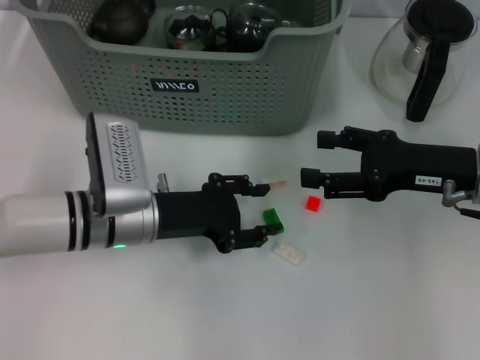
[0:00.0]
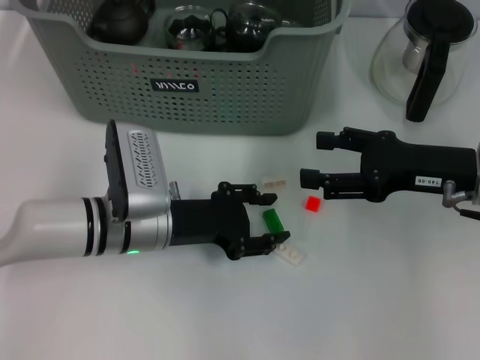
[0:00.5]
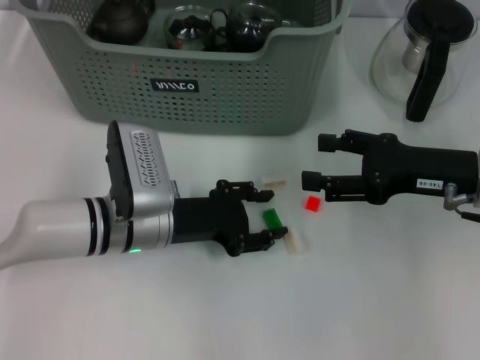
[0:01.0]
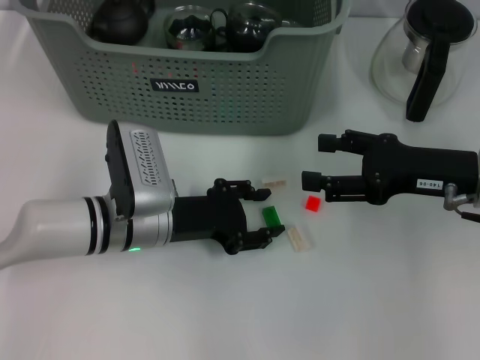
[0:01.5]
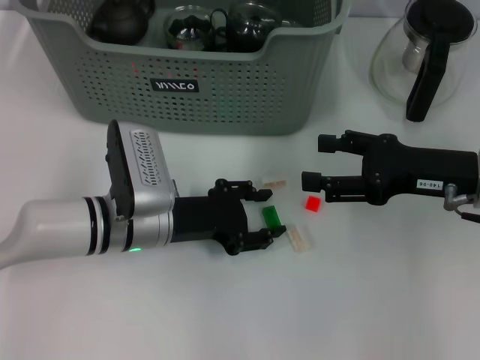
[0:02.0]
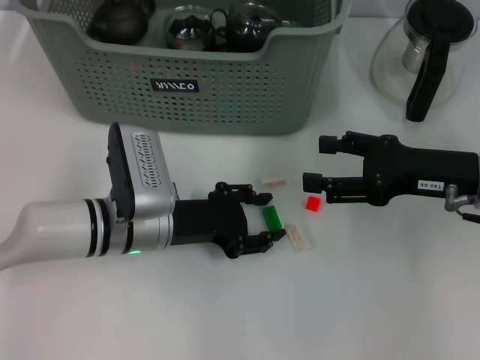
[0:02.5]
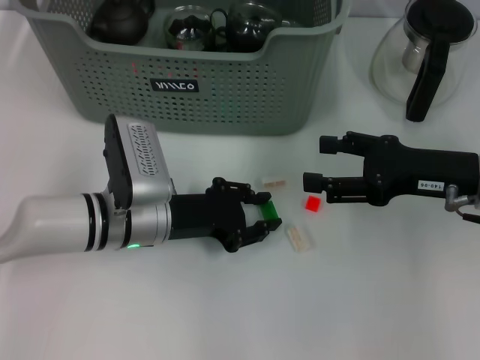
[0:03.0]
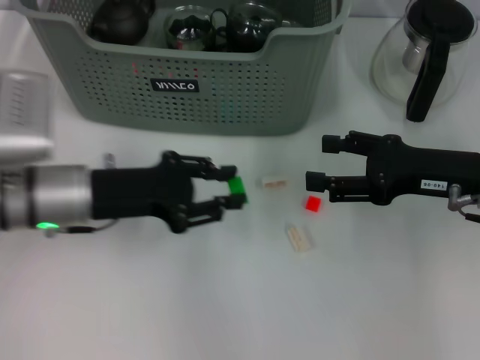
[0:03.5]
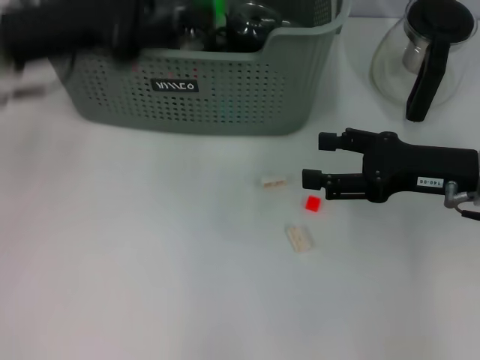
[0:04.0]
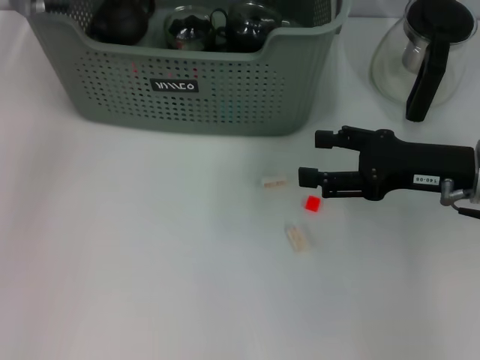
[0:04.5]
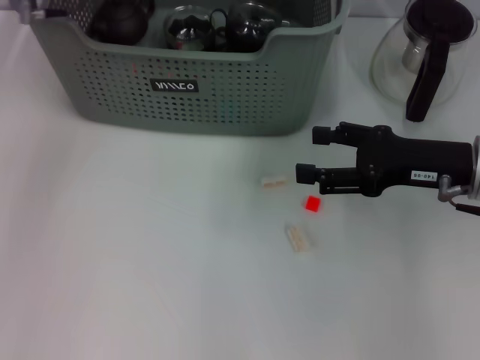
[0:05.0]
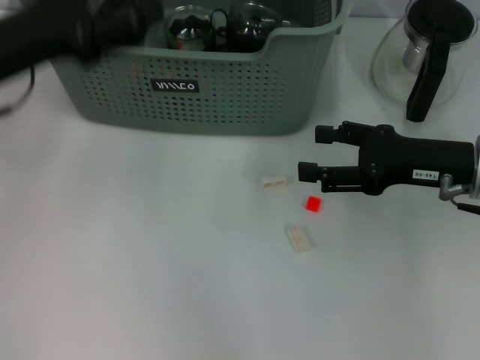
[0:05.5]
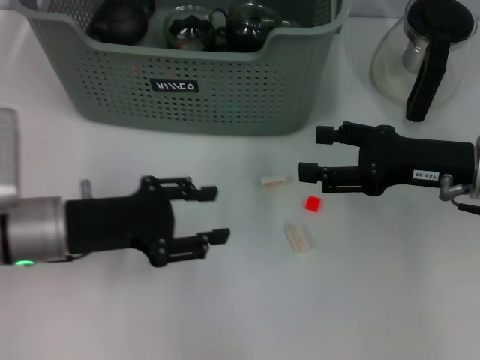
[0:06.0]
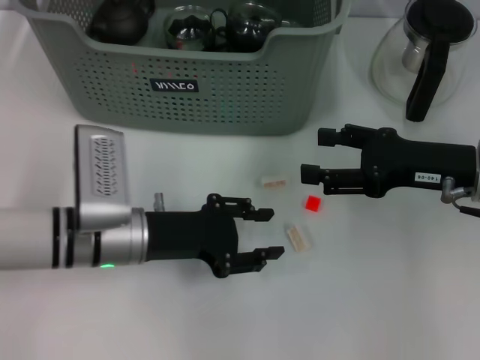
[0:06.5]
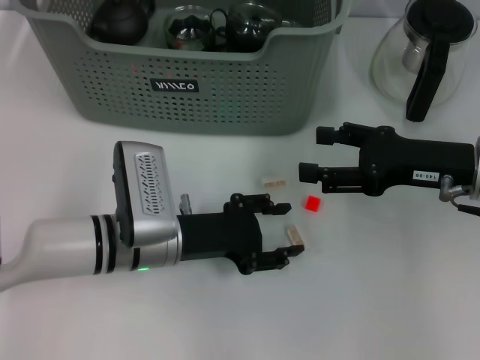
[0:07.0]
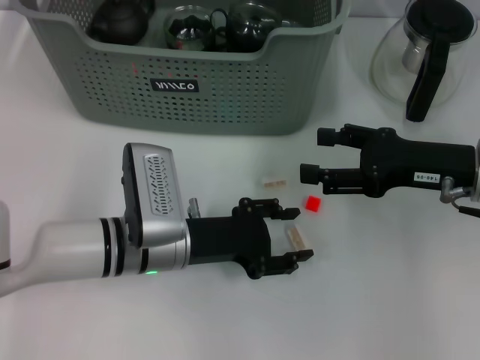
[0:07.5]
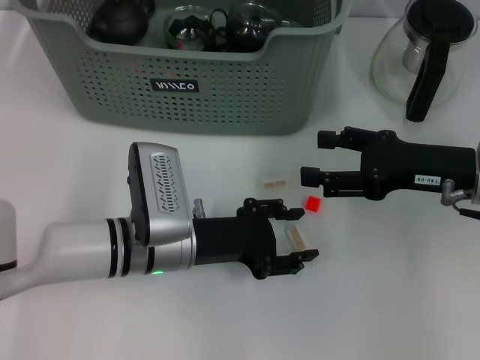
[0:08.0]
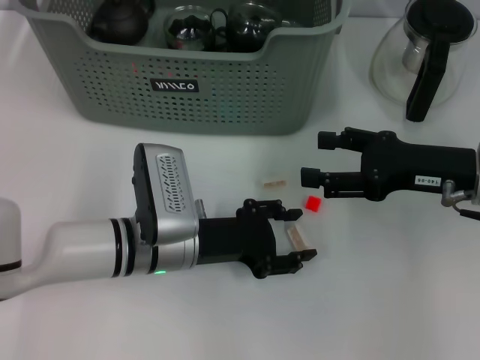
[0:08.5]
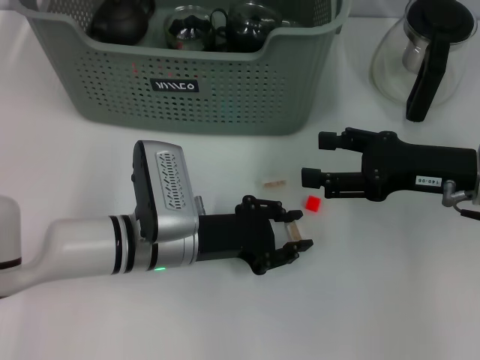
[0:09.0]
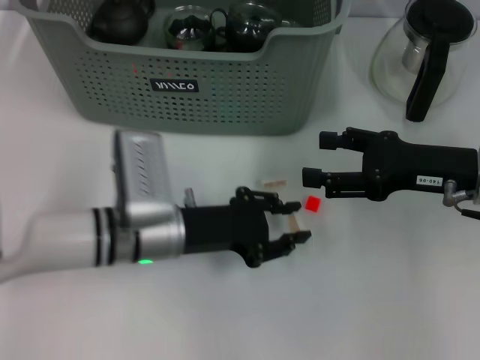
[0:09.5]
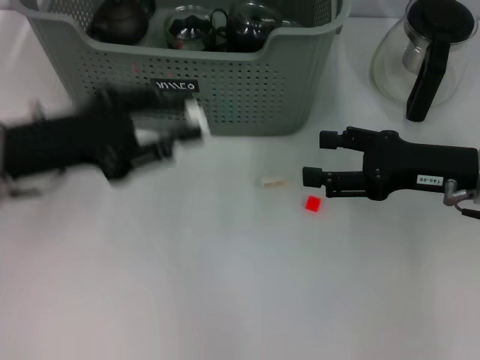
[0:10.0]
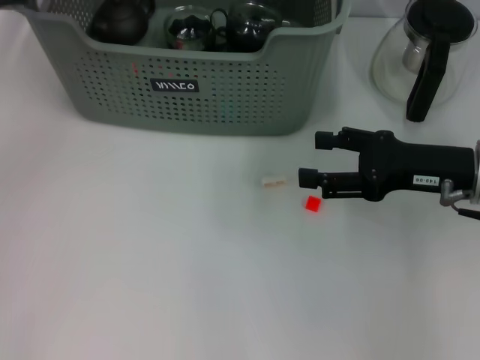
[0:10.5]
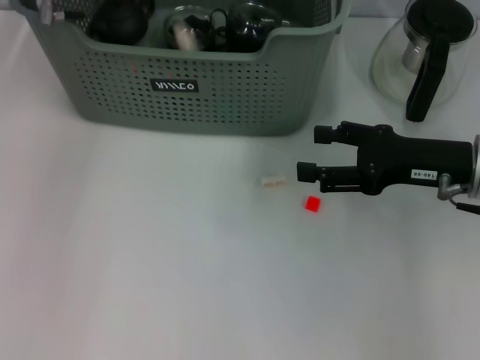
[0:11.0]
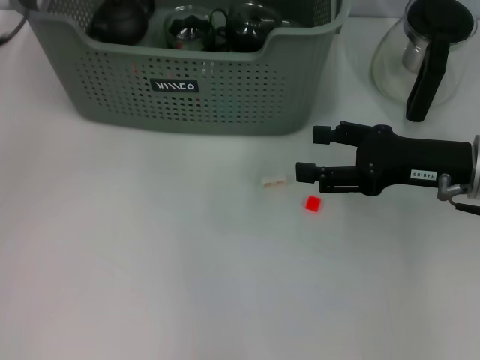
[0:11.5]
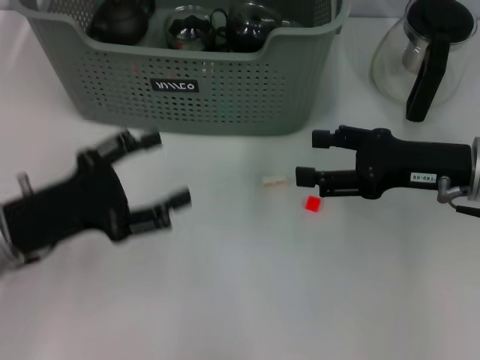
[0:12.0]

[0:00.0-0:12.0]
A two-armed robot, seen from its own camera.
Task of the whole recording: pick up the teacup on the table and place it into the storage bin, pick up the block on the table and place it into the storage bin.
Step, 0:00.0 to 0:02.5: Grasp the green block with left gripper.
Step, 0:03.0 to 0:05.0: Place the green block in the storage box with left gripper.
Step, 0:05.5 to 0:09.0: Grasp the white block with left gripper.
Step, 0:09.5 to 0:11.0: Place the white block in the storage box with left gripper.
0:00.0 to 0:02.0: The grippers move only a little.
0:02.0 to 0:04.0: The left gripper heads upward and to the left, covering about 20 cm.
0:04.0 to 0:06.0: The left gripper is displaced downward and backward by some 15 cm, and opens up.
0:06.0 to 0:08.0: The left gripper goes roughly 10 cm to the right and downward.
0:08.0 to 0:10.0: The left gripper heads to the left and upward, covering some 15 cm.
0:10.0 to 0:12.0: The left gripper travels forward and back again, some 20 cm each way, and opens up.

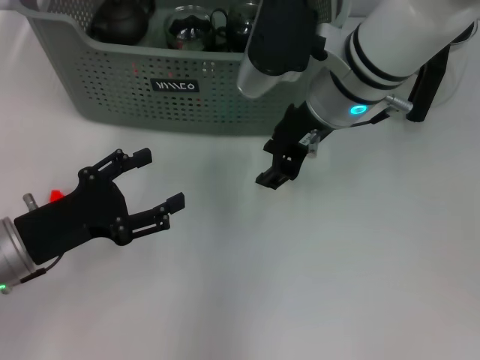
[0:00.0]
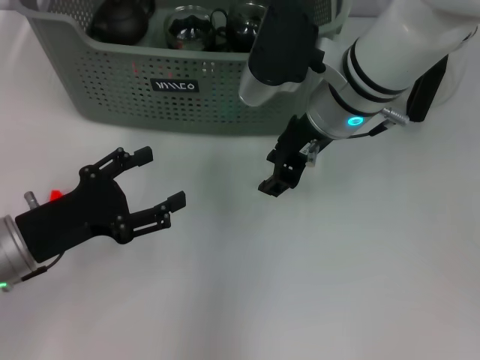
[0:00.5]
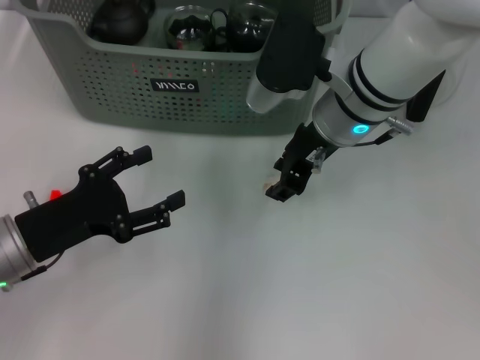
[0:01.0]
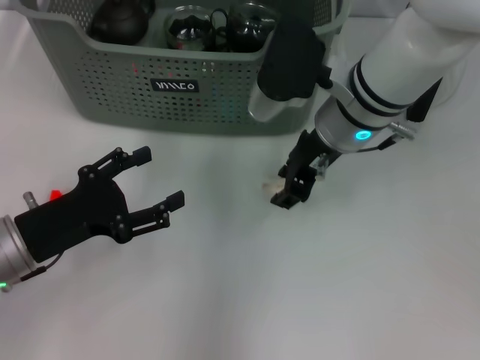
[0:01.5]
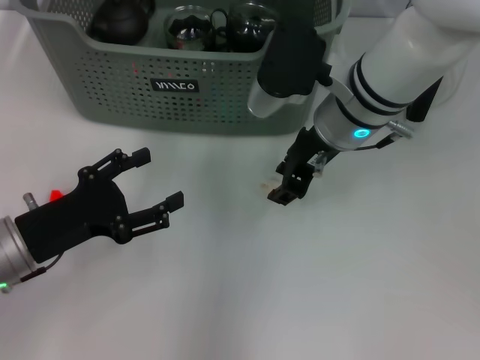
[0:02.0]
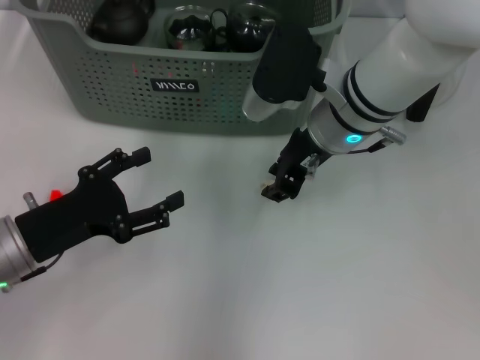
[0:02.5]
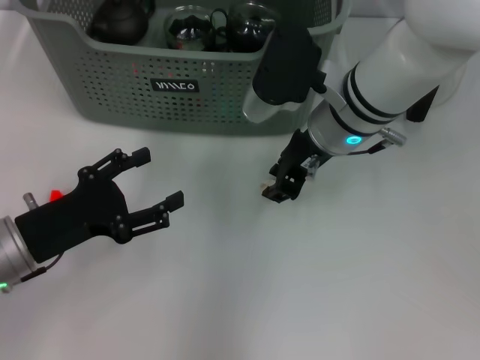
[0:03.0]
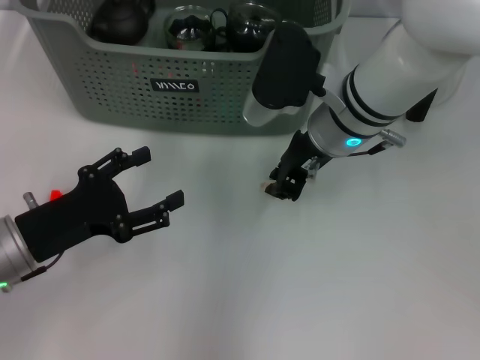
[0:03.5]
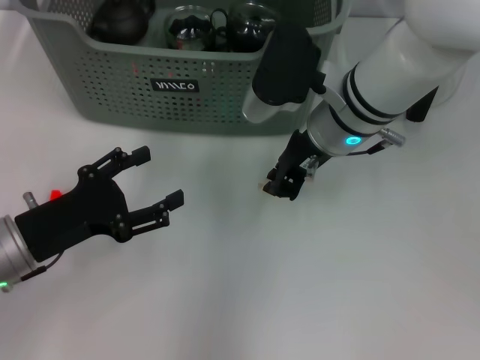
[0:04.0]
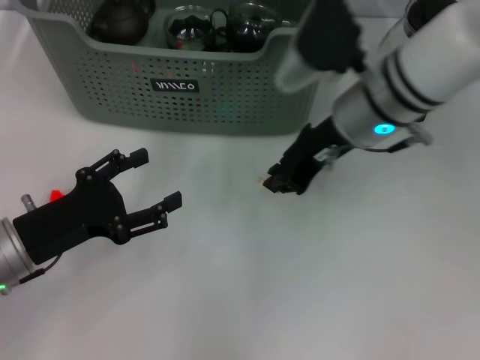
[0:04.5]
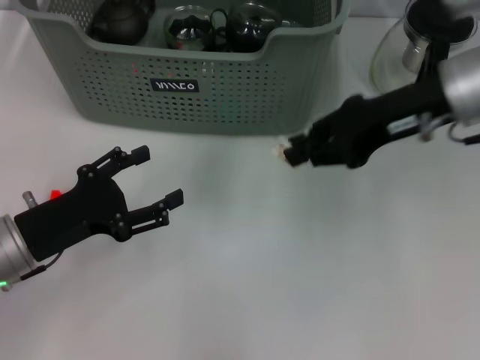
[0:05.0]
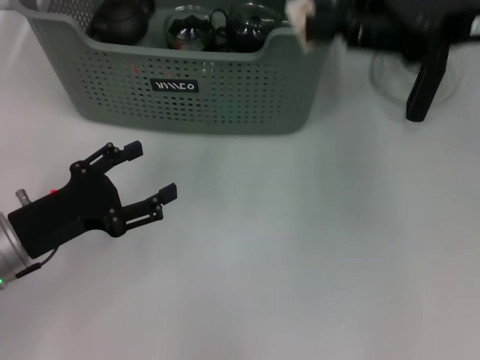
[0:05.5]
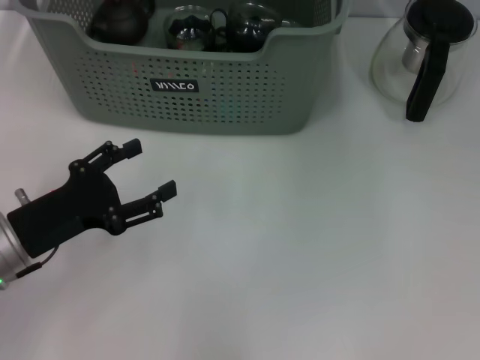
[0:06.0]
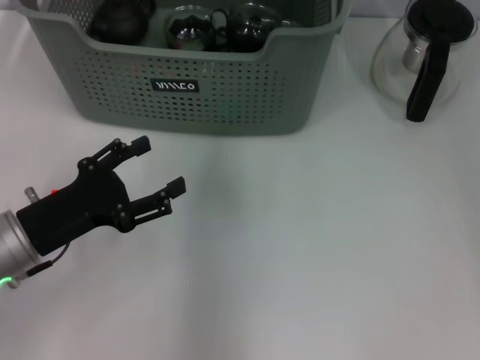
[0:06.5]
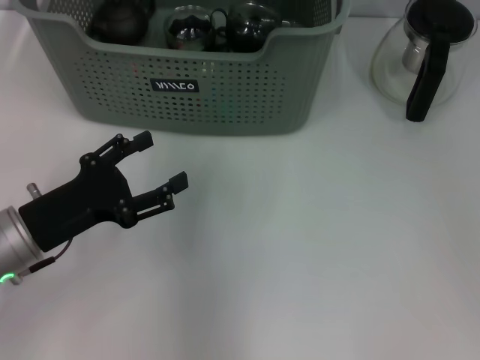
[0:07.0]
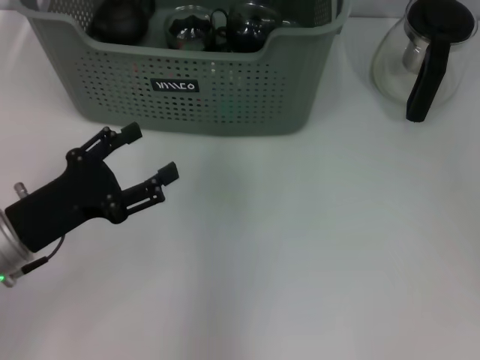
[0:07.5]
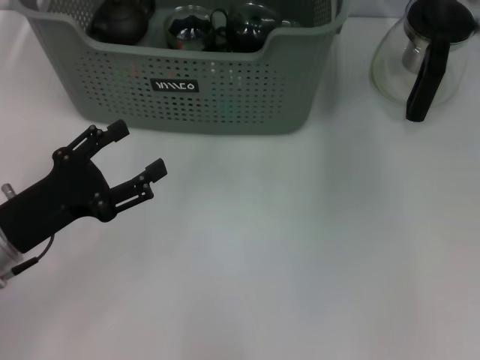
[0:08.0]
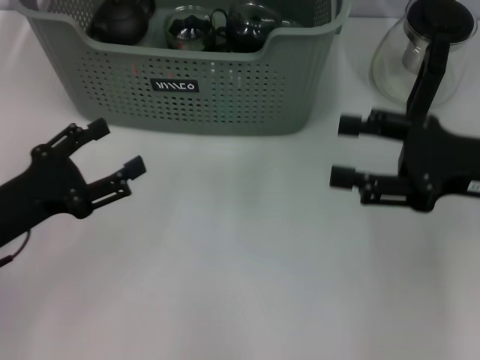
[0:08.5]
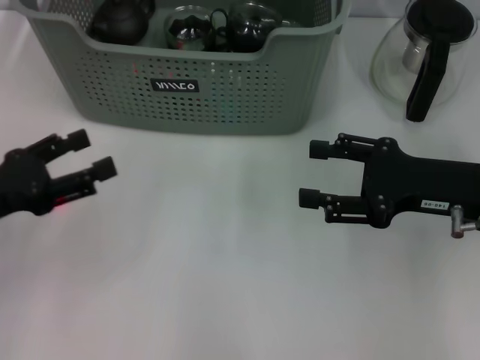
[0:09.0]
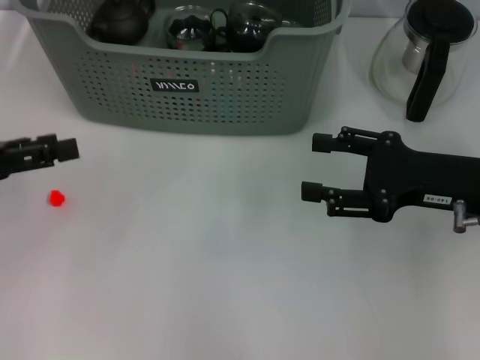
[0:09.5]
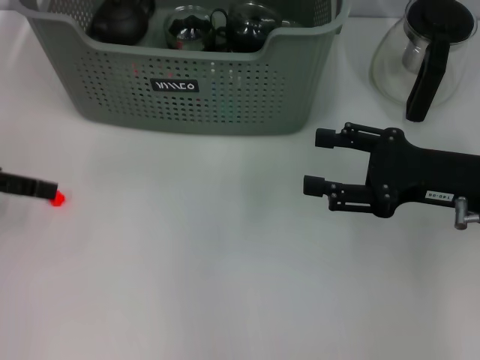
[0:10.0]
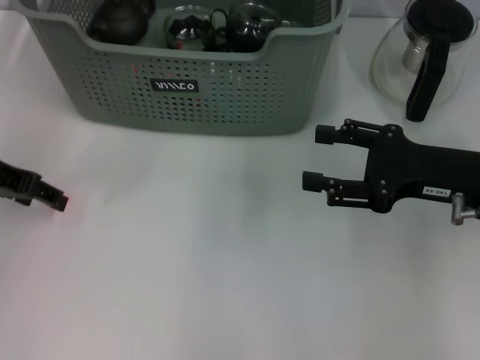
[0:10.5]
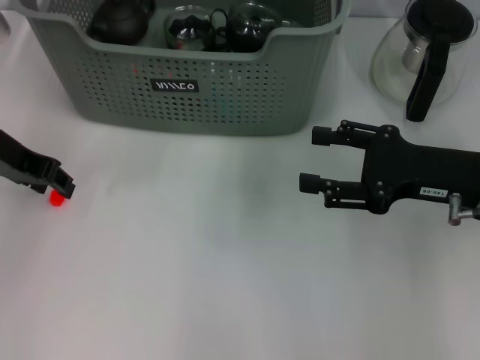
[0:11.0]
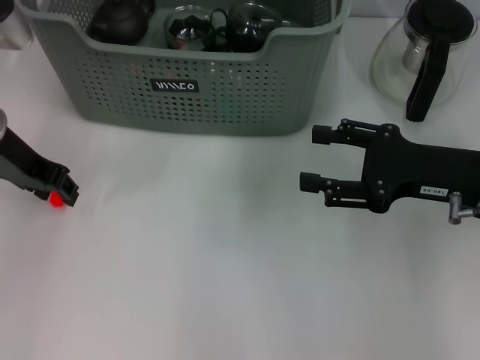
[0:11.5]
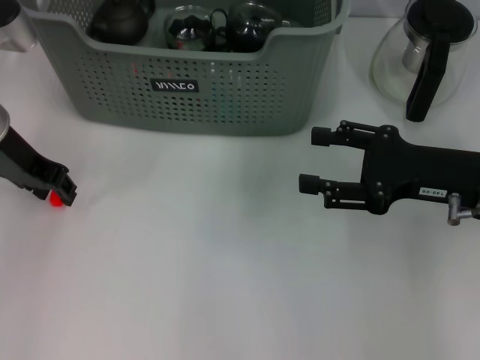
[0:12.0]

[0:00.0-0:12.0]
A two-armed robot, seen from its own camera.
Task of the whole recording: pick up the teacup on the table and place it into the storage bin, pick up the block on the table and place it into the storage bin.
Step, 0:00.0 to 0:04.0: Grasp the white block with right gripper.
Step, 0:04.5 to 0:07.0: Place the white block in the storage box with right gripper.
0:00.0 to 0:02.0: The grippers make only small movements.
0:02.0 to 0:04.0: The right gripper closes up.
0:04.0 to 0:06.0: The right gripper is displaced upward and to the right by approximately 20 cm.
0:08.0 to 0:10.0: The left gripper is displaced upward, to the left and forward by roughly 15 cm; the right gripper is displaced downward and backward by approximately 15 cm.
0:10.0 to 0:12.0: The left gripper travels to the right and forward by approximately 10 cm, and closes its fingers.

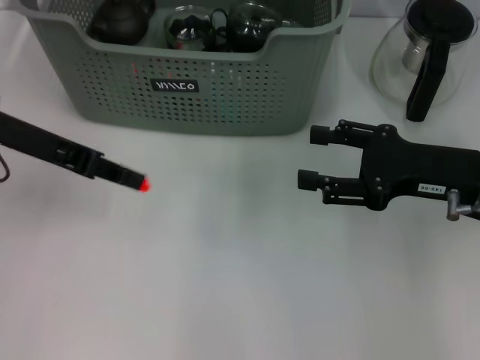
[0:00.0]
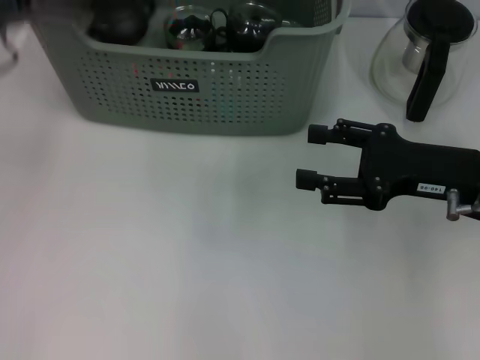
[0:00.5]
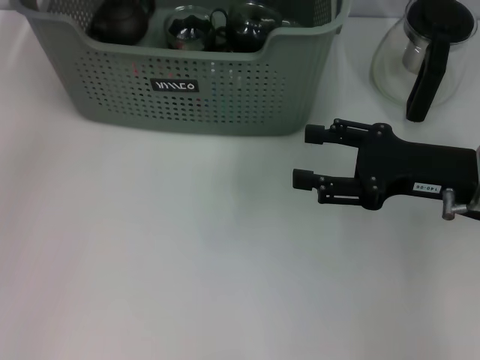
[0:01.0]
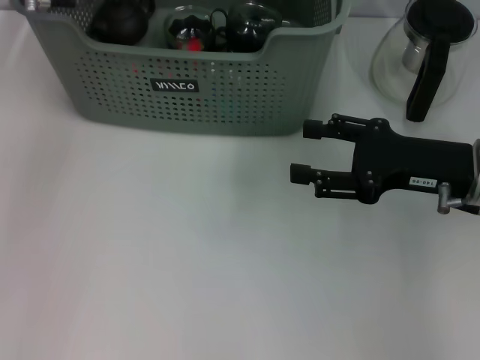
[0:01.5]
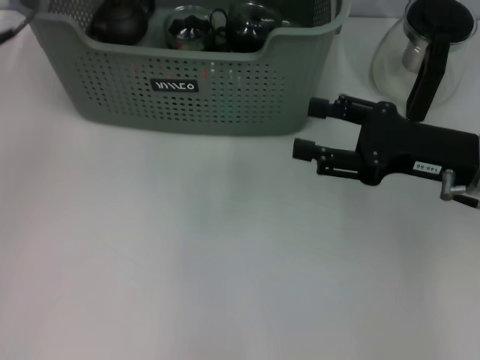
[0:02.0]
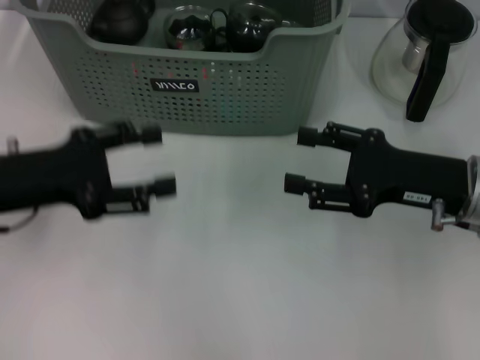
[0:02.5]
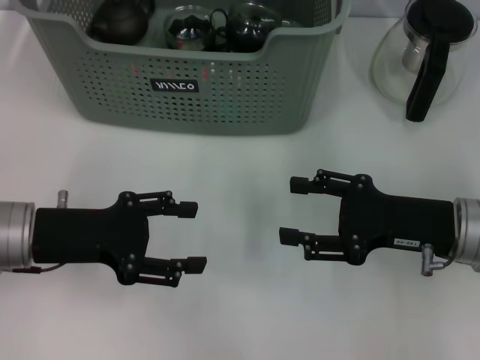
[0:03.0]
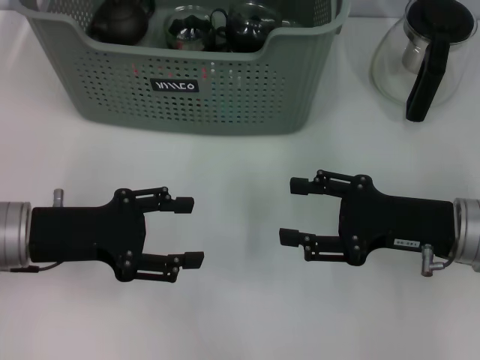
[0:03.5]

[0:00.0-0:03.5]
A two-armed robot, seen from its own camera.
Task of the whole recording: pick up the teacup on the table and place it into the storage bin, pick up the block on the table and place it into the storage bin.
Step, 0:00.0 to 0:01.5: Place the orange block in the storage box with left gripper.
0:00.0 to 0:02.0: The left gripper reaches roughly 15 cm forward, then returns, and opens its fingers.
0:02.0 to 0:03.5: The left gripper is displaced downward and backward by roughly 15 cm. The right gripper shifts by some 5 cm.
